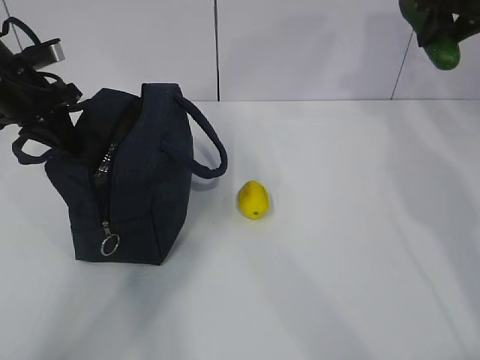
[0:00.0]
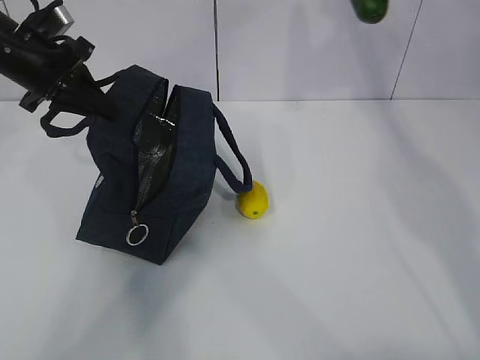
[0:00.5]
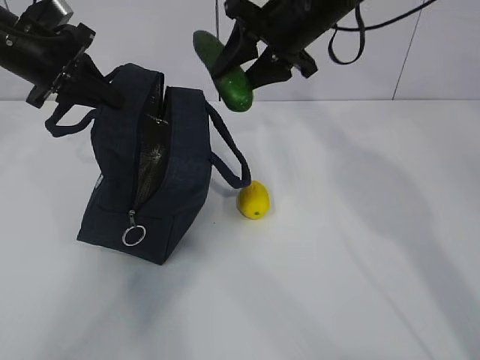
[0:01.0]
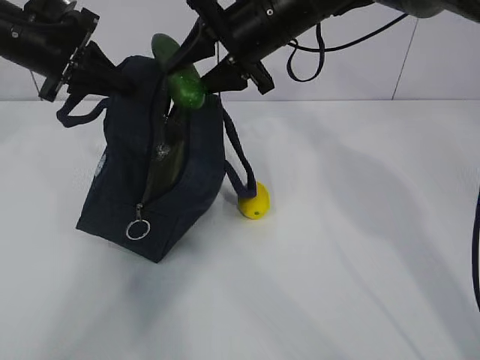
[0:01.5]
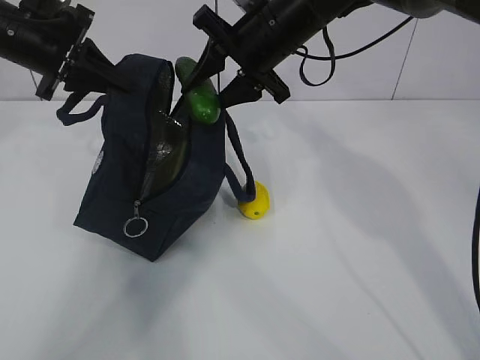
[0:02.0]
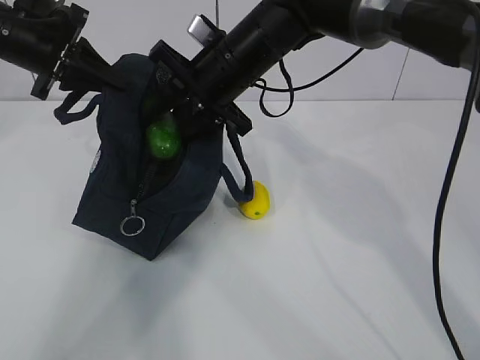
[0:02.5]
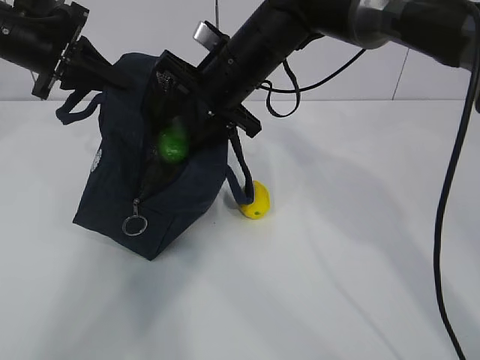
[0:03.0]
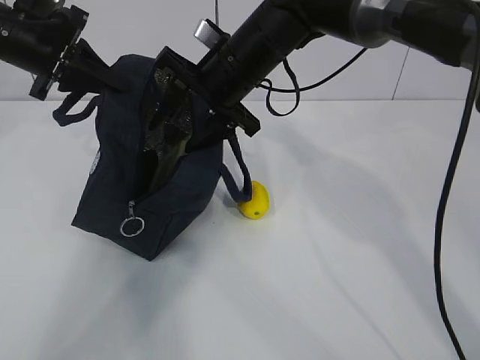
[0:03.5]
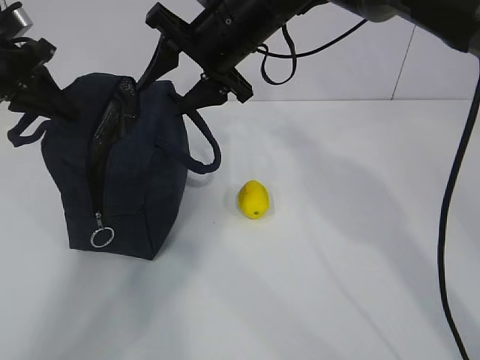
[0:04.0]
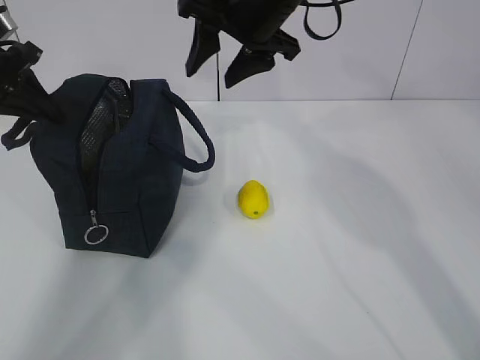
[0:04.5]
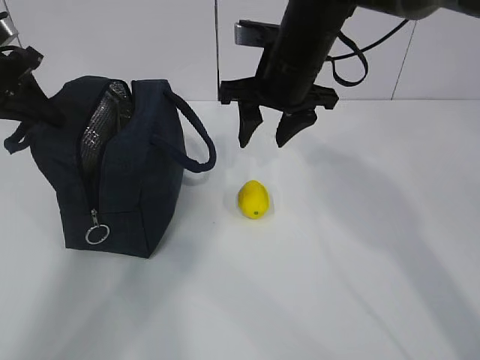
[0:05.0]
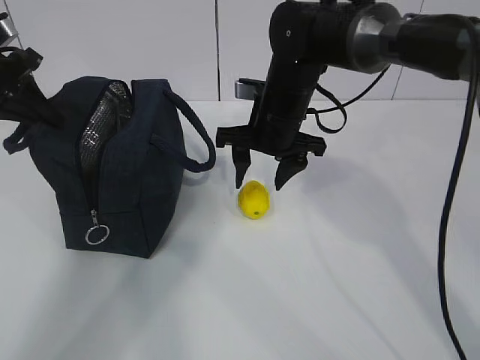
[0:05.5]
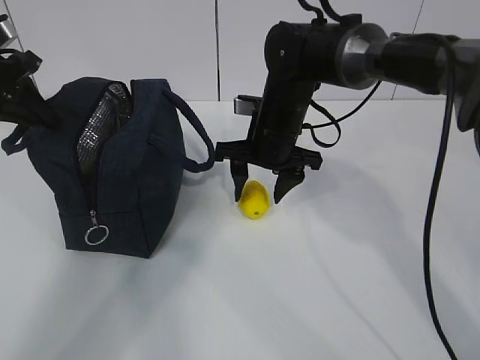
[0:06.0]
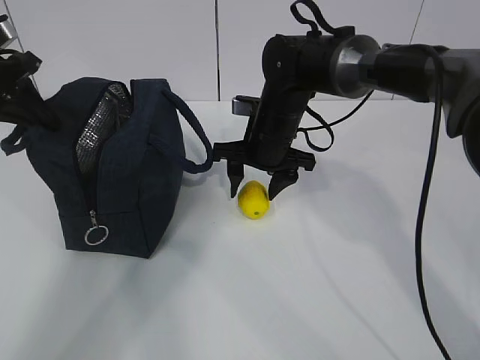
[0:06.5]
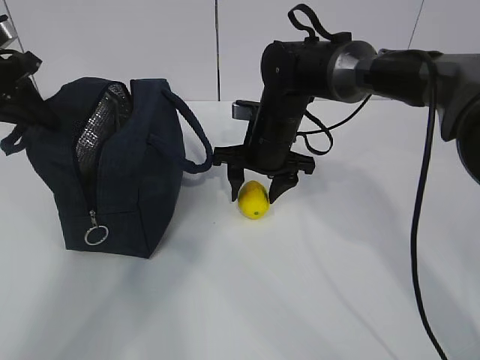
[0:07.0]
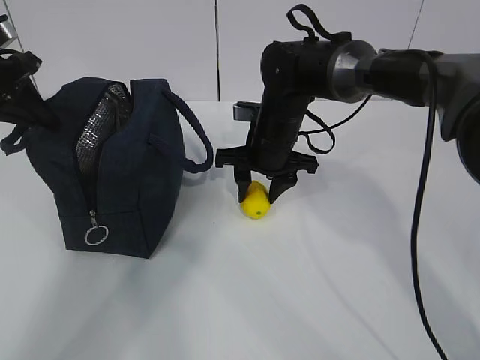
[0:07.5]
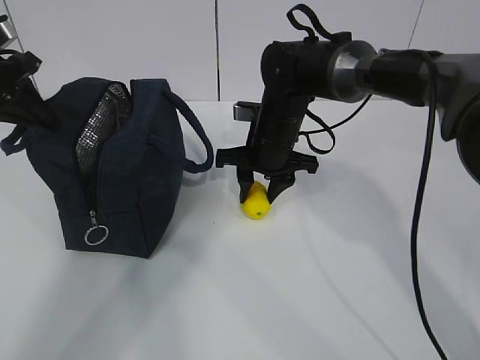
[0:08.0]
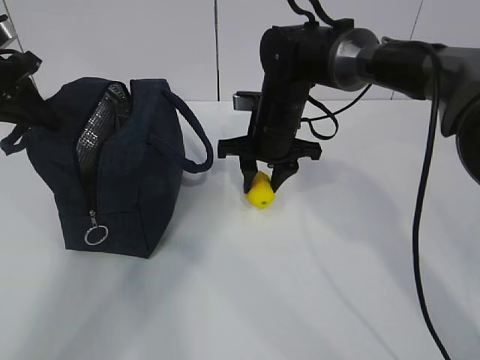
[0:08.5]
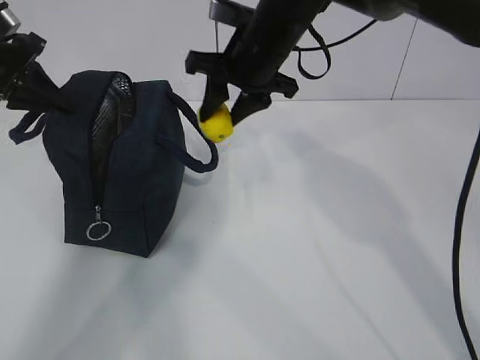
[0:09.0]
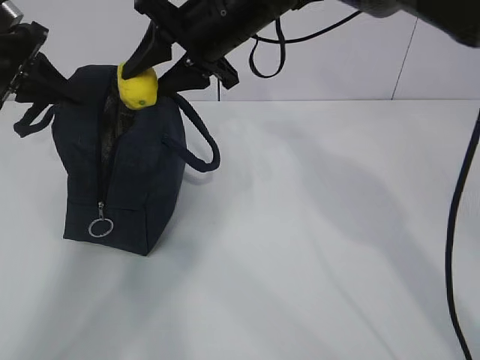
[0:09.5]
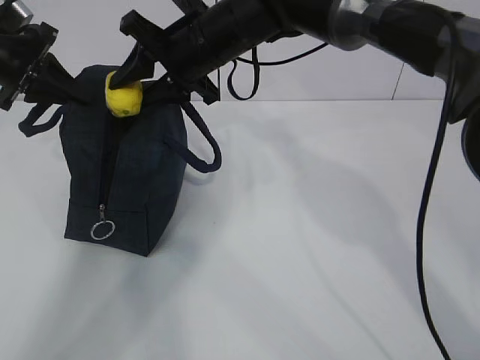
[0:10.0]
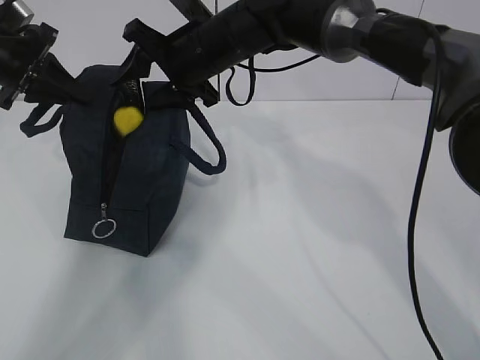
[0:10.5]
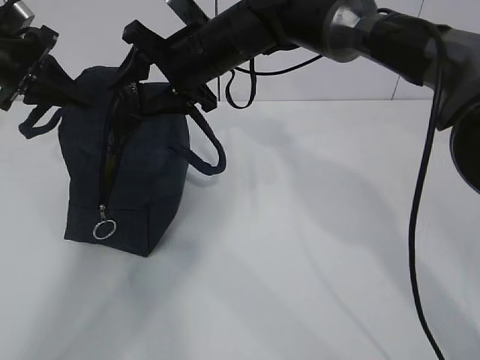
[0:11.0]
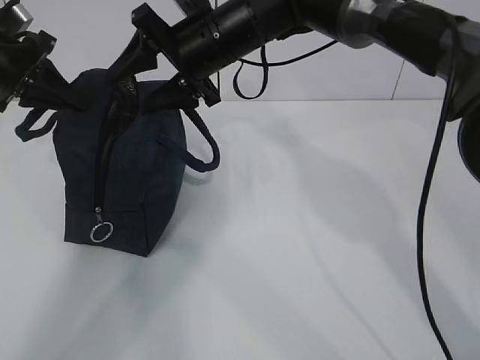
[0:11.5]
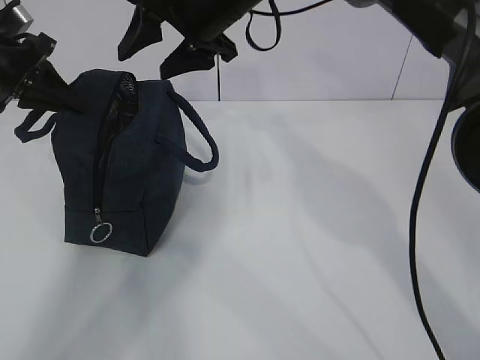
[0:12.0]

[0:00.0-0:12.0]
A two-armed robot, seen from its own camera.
Step, 0:01.5 to 0:04.0: Secure the lunch bag with your left hand.
Step, 0:04.5 to 0:07.0: Grab the lunch bag with your right hand.
Step, 0:07.5 to 0:09.0: Move the lunch bag to the right.
0:00.0 to 0:02.0: The left gripper shifts by approximately 5 cm. The right gripper is displaced to the left by some 25 cm.
0:02.0 to 0:04.0: The left gripper is displaced to the left by roughly 5 cm.
0:04.0 to 0:06.0: The right gripper heads downward, covering some 10 cm.
0:06.0 to 0:08.0: The grippers make only small movements.
0:08.0 to 0:10.0: The right gripper moves upward and to the left, roughly 15 cm.
0:10.0 to 0:12.0: The grippers make only small movements.

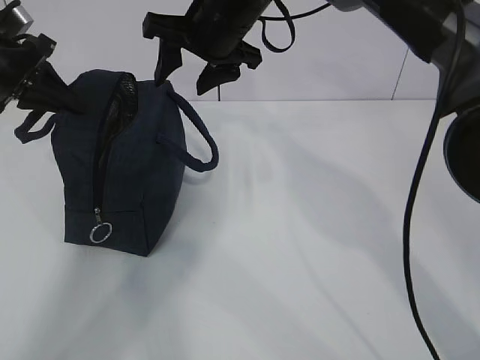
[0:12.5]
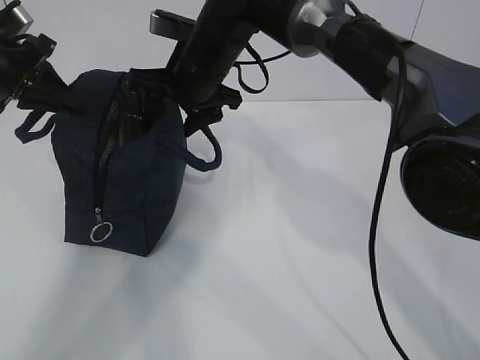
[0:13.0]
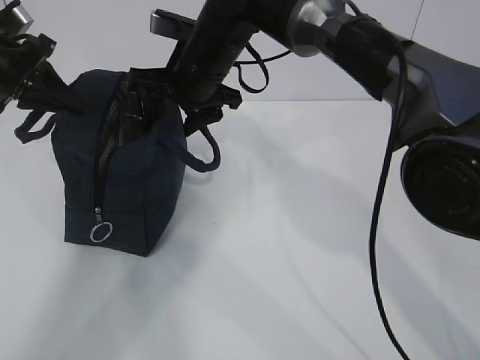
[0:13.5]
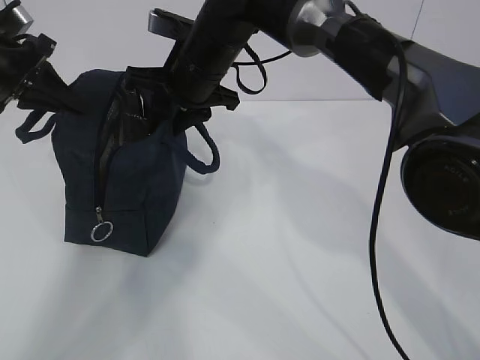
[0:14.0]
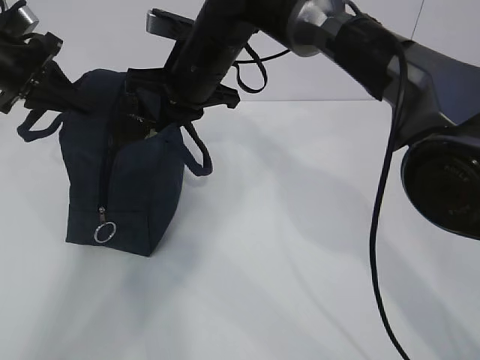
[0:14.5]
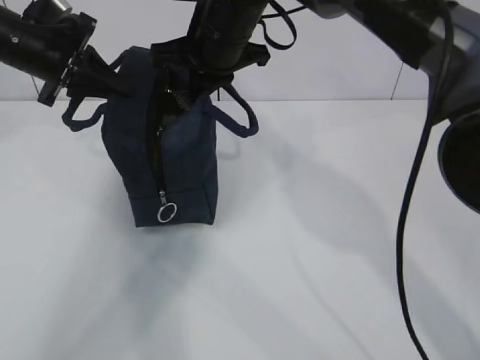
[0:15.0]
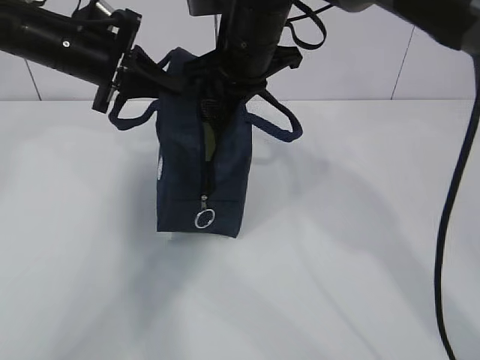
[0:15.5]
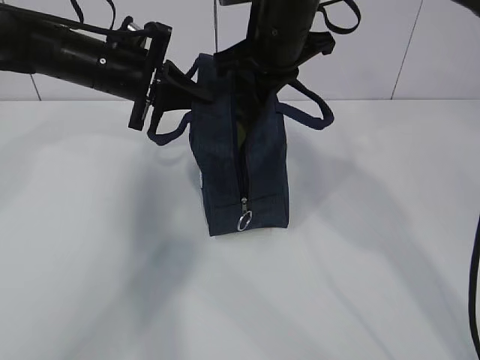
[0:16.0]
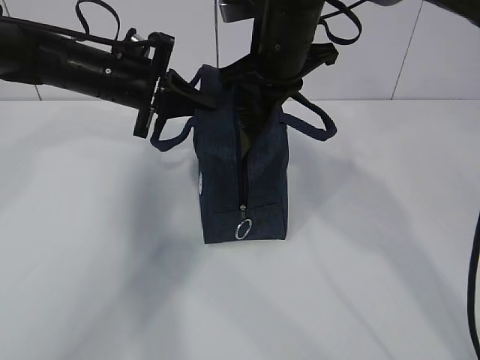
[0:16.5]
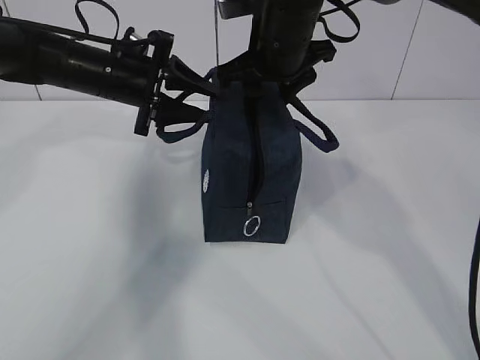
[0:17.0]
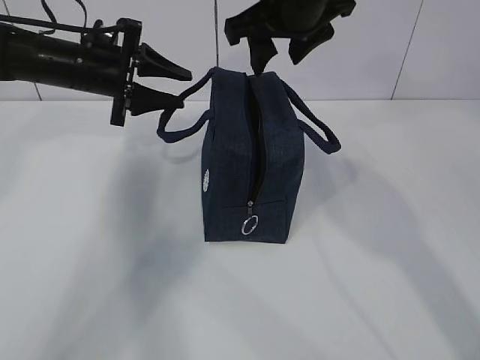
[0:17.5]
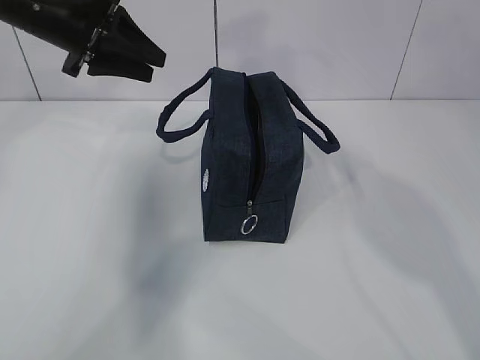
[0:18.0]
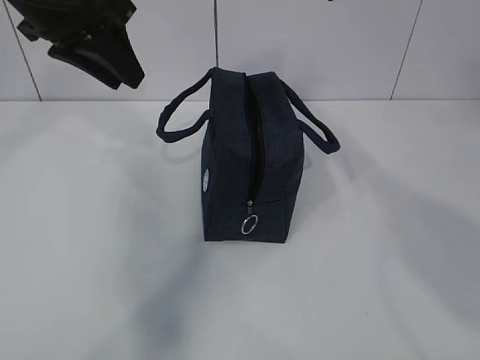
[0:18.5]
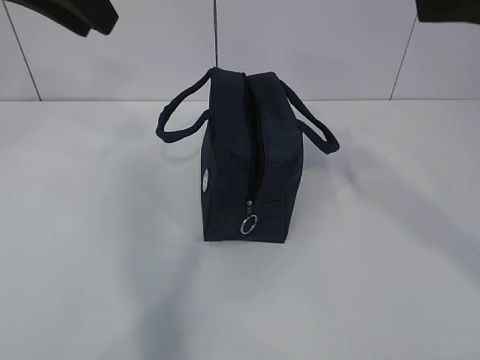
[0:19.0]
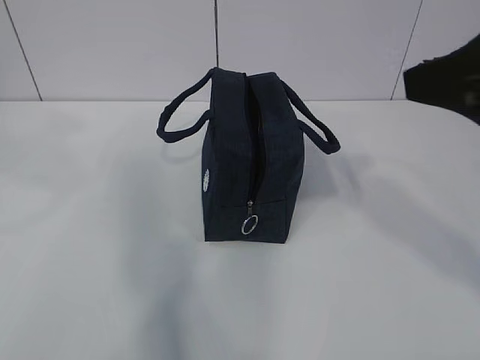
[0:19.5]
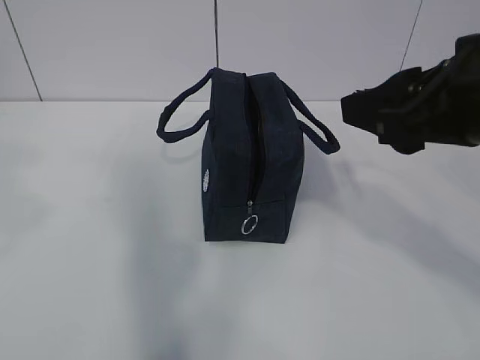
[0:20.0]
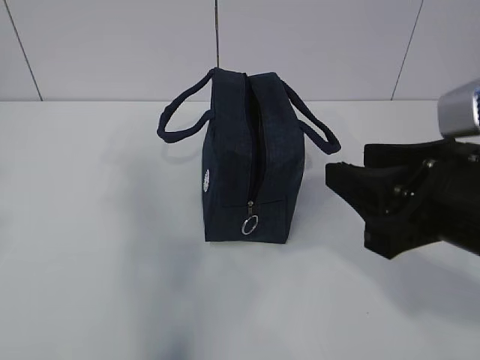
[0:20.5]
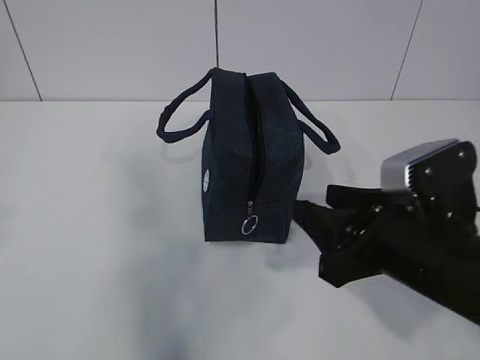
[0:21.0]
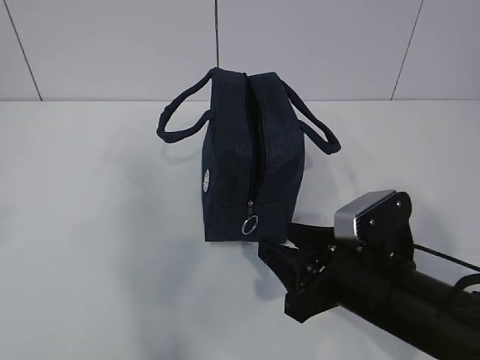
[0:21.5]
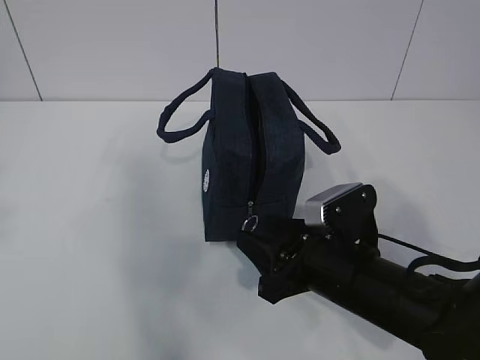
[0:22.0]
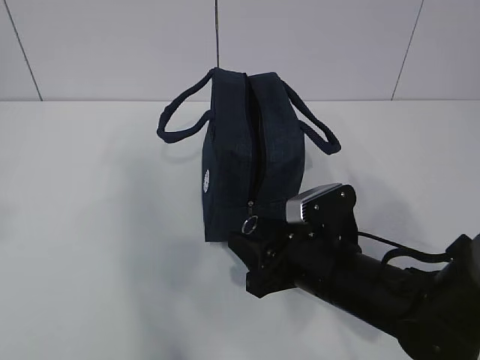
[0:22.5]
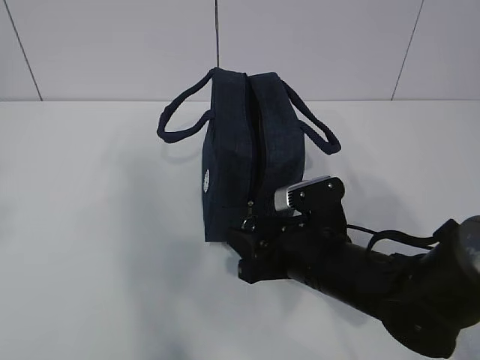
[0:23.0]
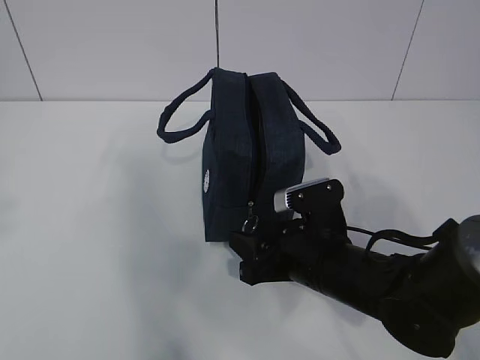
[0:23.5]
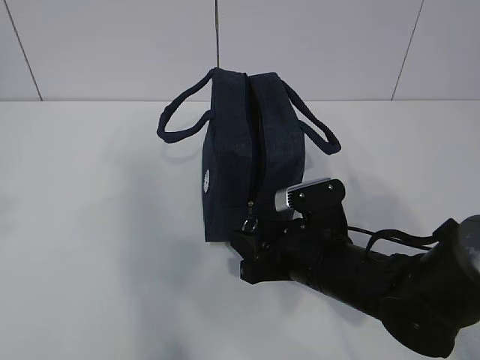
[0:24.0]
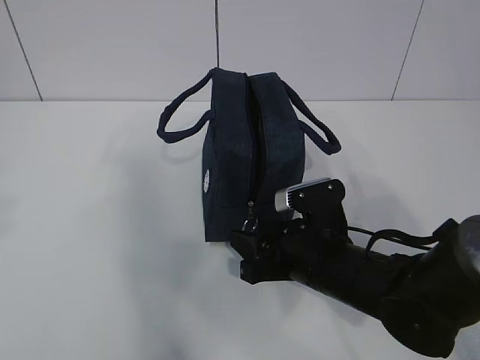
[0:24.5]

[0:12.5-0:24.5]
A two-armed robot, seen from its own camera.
0:12.5 to 0:14.5: The right gripper shifts approximately 5 cm downward, and closes its fingers.
0:14.5 to 0:16.5: The right gripper moves to the right, approximately 10 cm. The left gripper moves to the right, roughly 15 cm.
0:16.5 to 0:18.5: The left gripper shifts approximately 15 cm upward and backward, and opens. Meanwhile the right gripper is displaced upward, backward and to the right by some 20 cm, and opens up.
0:18.5 to 0:20.5: The left gripper goes about 30 cm backward and to the left, while the right gripper moves downward and backward, roughly 20 cm.
0:20.5 to 0:22.5: The right gripper shifts about 20 cm downward and forward.
0:22.5 to 0:24.5: The grippers move only a little.

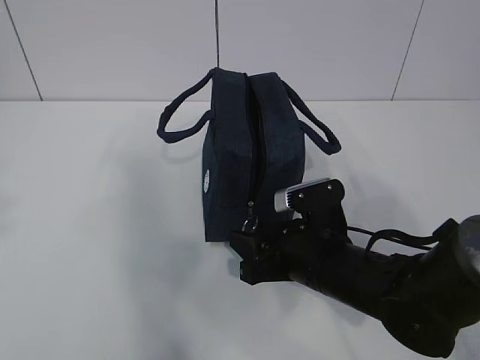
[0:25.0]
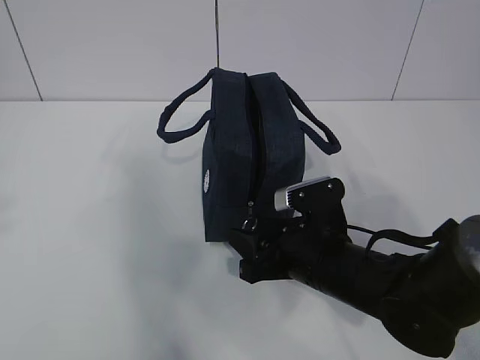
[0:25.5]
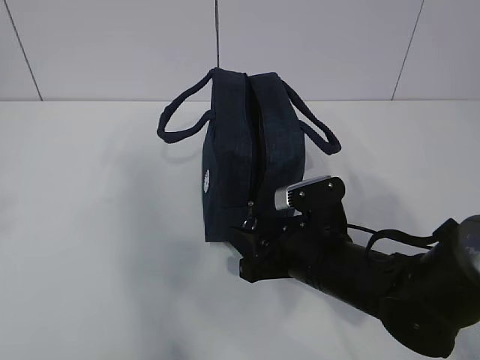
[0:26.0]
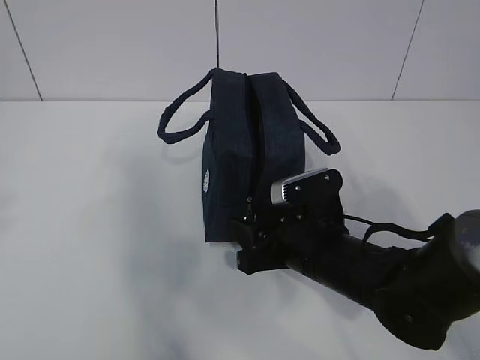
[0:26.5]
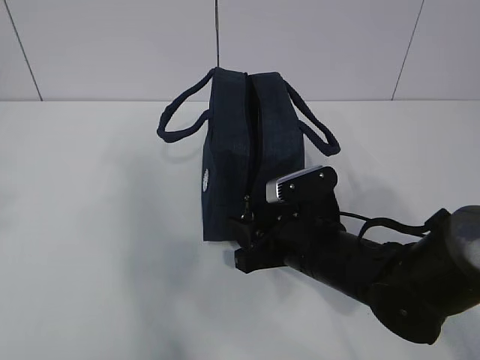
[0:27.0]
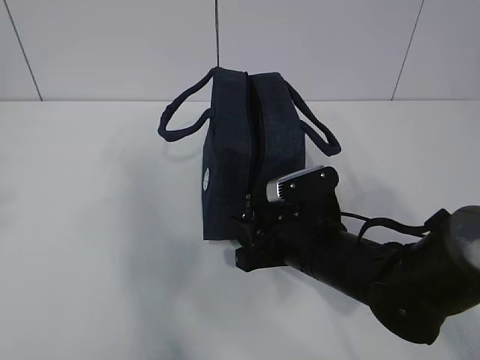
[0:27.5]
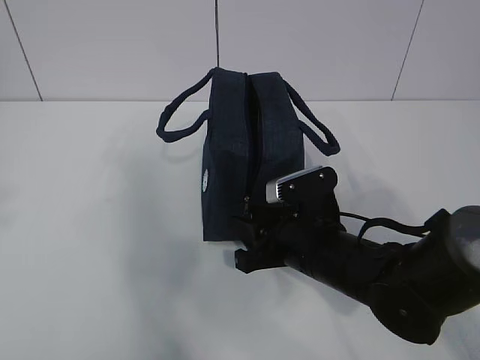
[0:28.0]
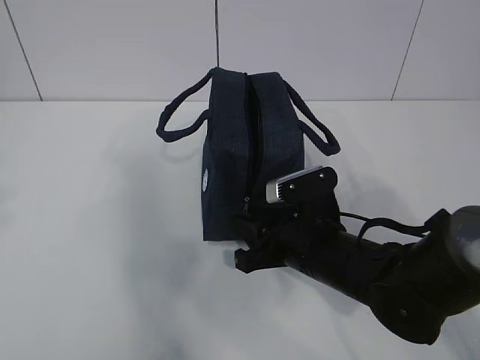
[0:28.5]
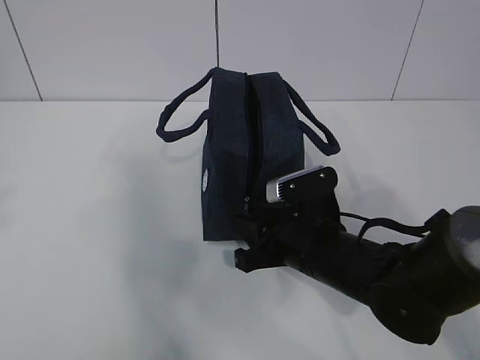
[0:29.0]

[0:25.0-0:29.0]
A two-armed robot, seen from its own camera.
0:25.0 to 0:27.0: There are only small adjustments of the grippers.
0:27.0 to 0:29.0: Both grippers stay about where they are.
